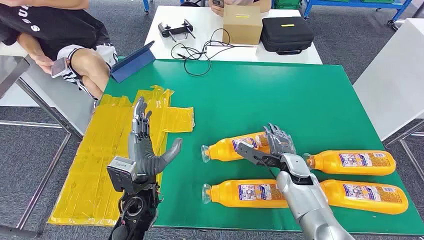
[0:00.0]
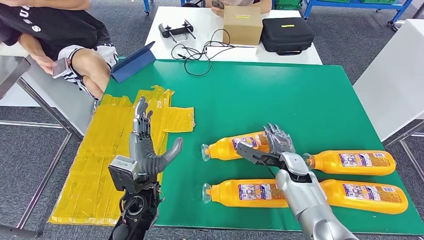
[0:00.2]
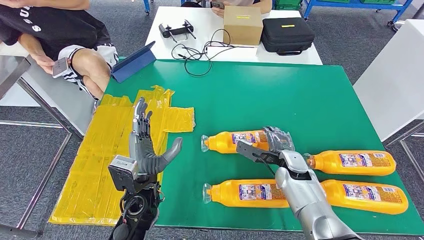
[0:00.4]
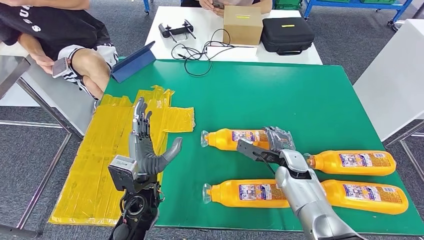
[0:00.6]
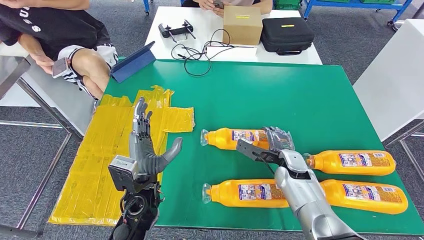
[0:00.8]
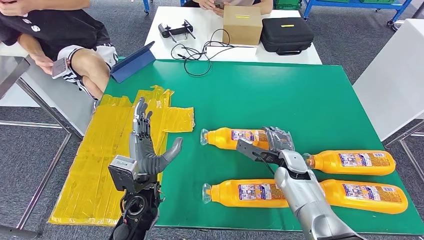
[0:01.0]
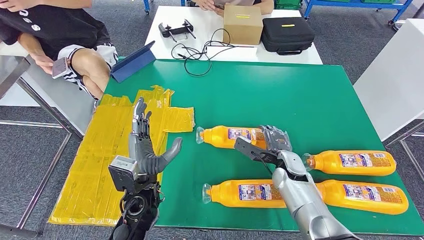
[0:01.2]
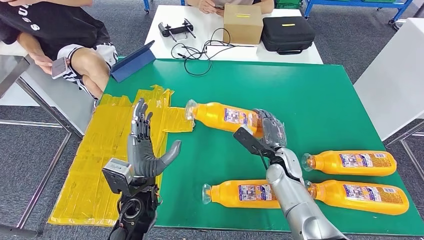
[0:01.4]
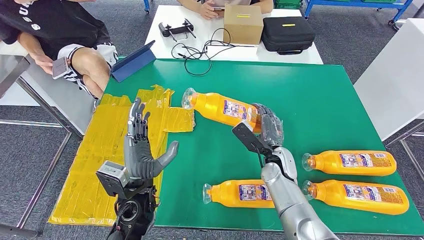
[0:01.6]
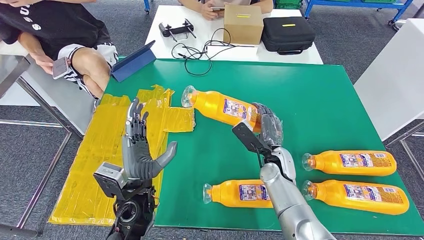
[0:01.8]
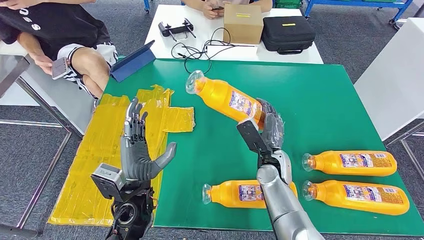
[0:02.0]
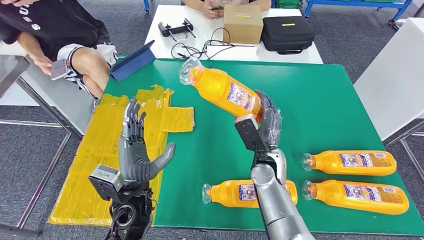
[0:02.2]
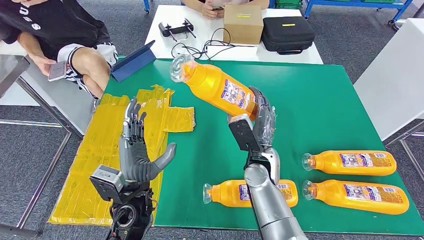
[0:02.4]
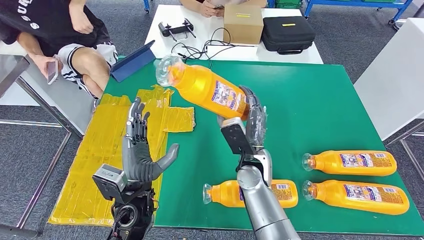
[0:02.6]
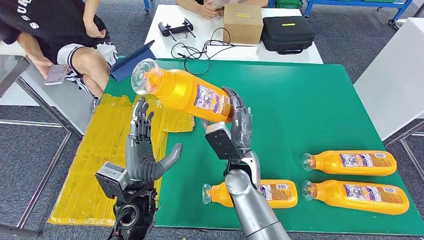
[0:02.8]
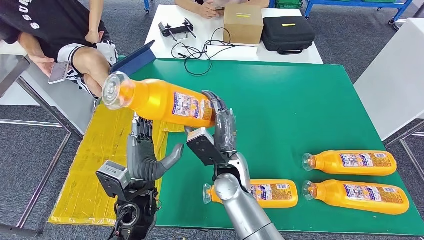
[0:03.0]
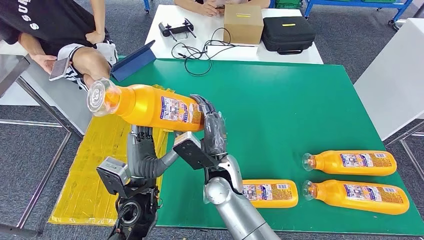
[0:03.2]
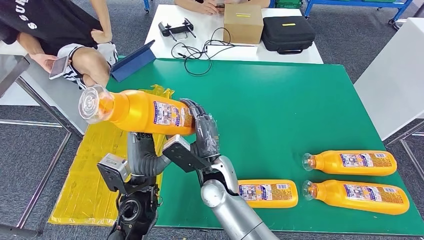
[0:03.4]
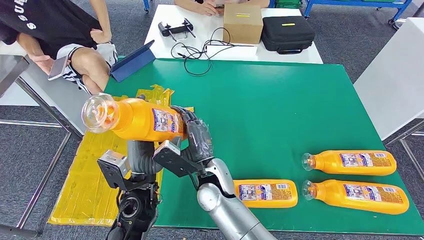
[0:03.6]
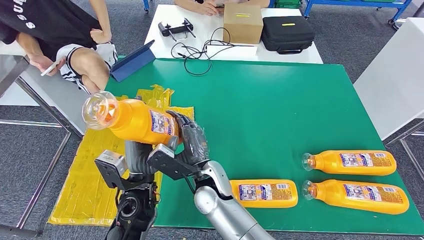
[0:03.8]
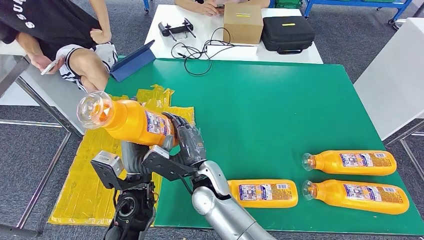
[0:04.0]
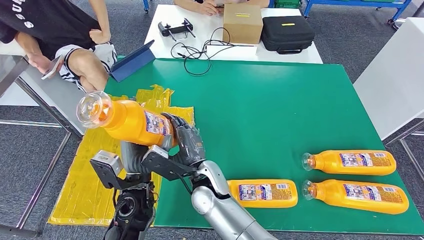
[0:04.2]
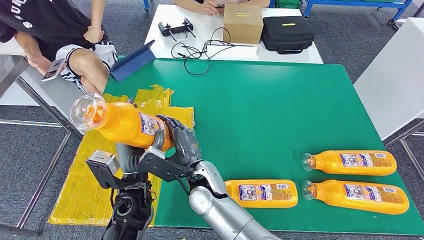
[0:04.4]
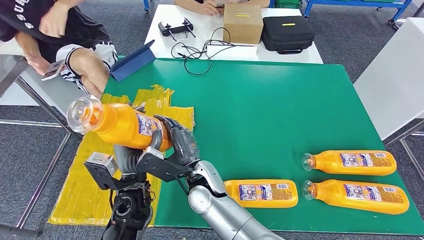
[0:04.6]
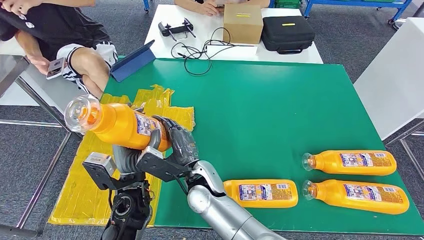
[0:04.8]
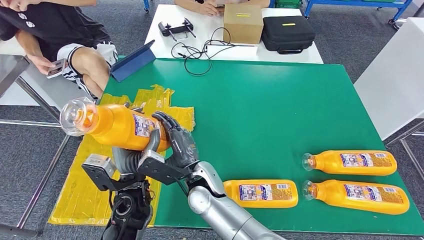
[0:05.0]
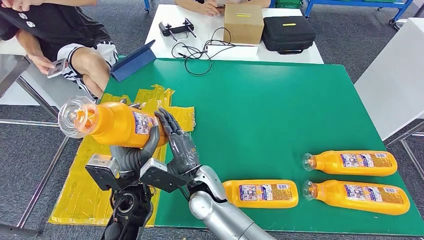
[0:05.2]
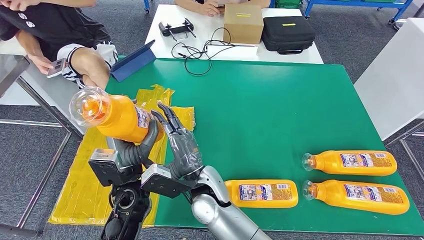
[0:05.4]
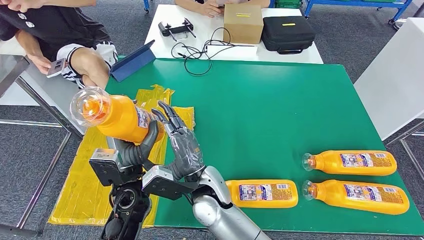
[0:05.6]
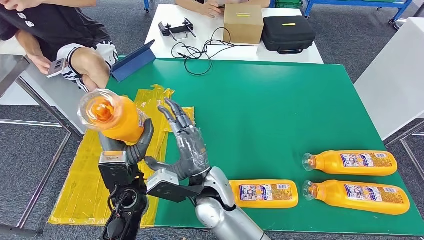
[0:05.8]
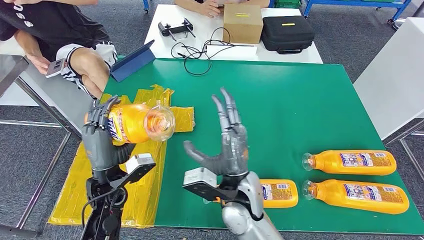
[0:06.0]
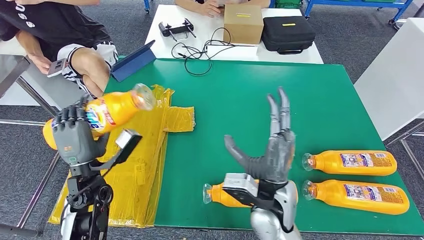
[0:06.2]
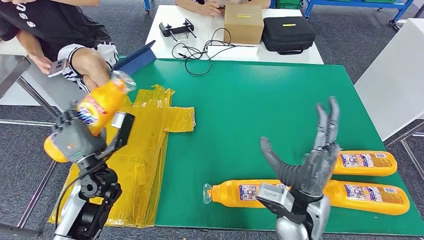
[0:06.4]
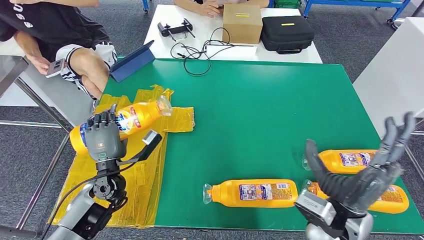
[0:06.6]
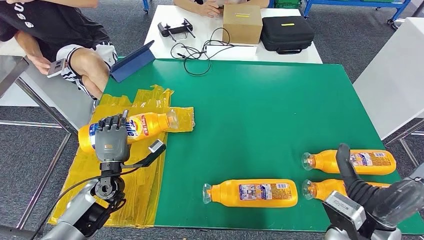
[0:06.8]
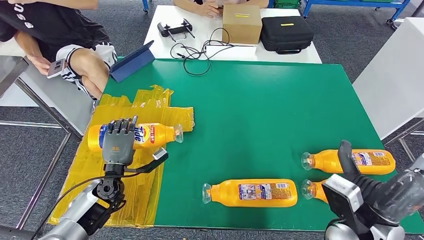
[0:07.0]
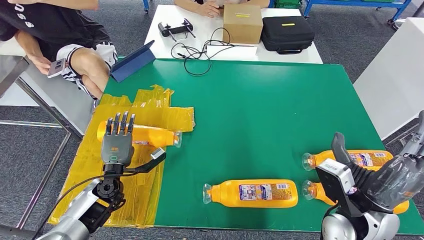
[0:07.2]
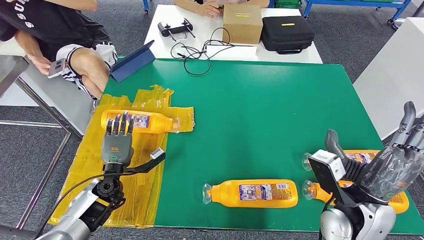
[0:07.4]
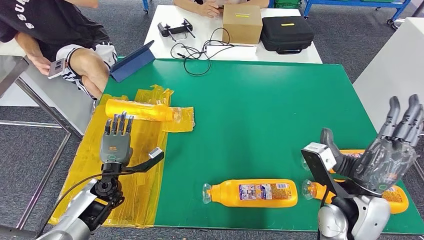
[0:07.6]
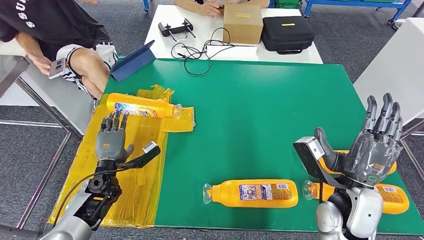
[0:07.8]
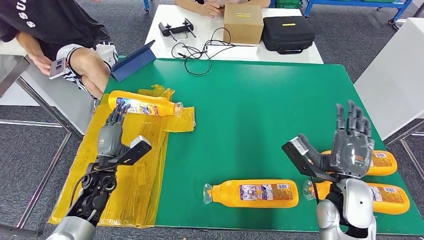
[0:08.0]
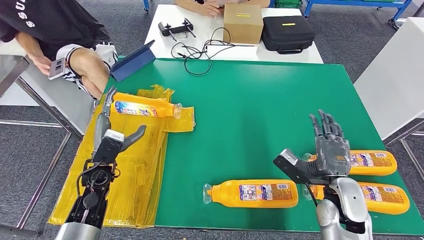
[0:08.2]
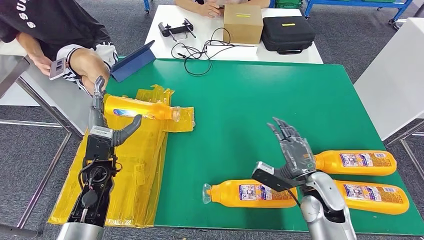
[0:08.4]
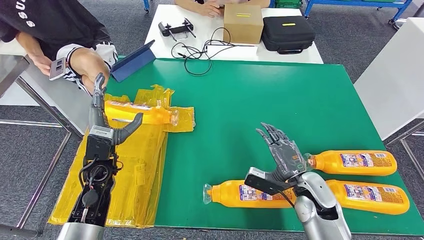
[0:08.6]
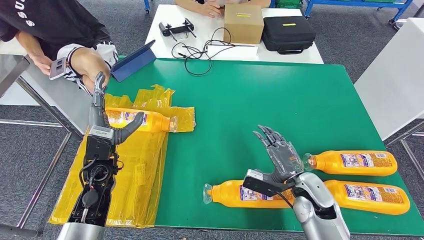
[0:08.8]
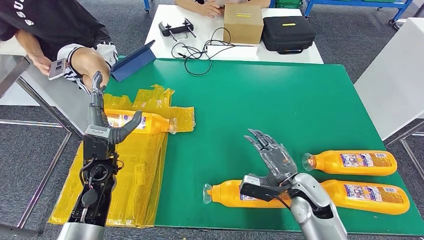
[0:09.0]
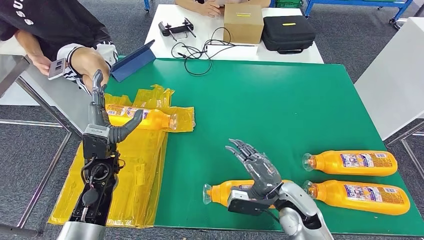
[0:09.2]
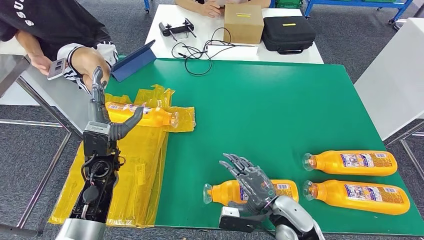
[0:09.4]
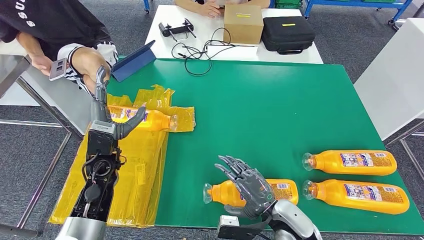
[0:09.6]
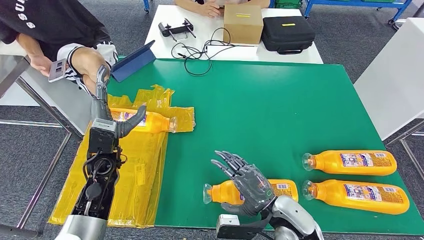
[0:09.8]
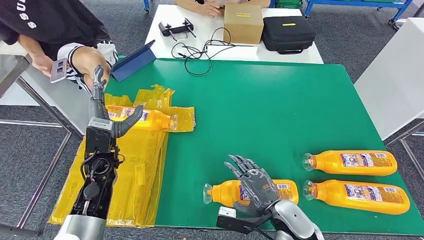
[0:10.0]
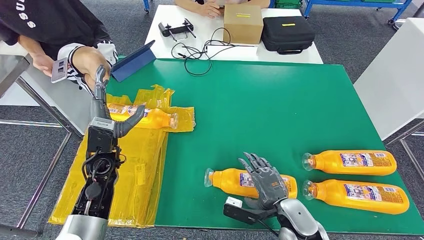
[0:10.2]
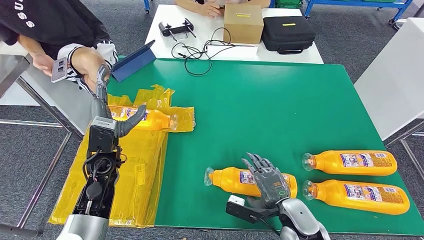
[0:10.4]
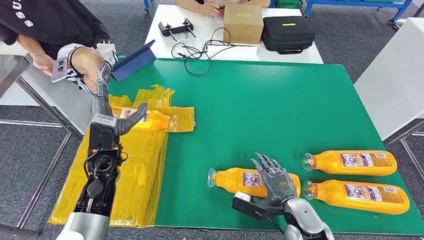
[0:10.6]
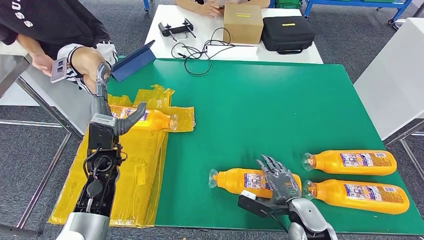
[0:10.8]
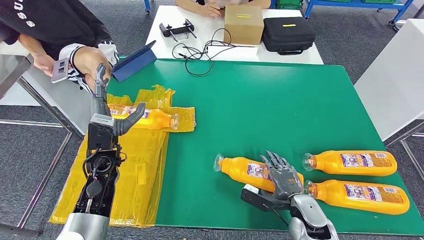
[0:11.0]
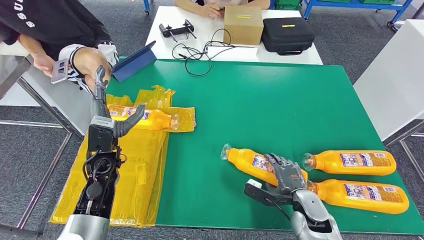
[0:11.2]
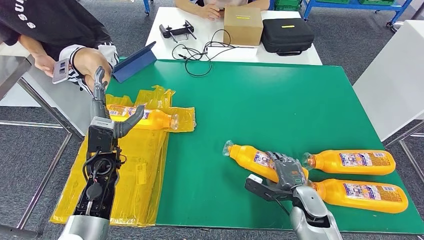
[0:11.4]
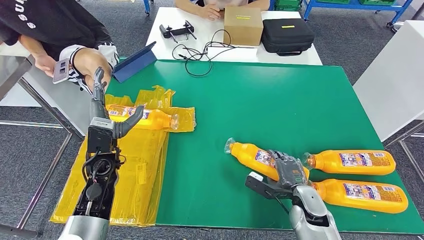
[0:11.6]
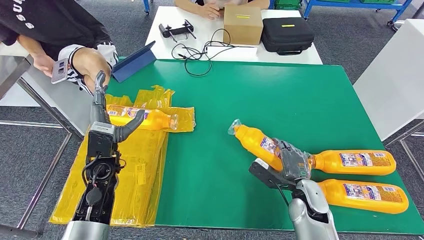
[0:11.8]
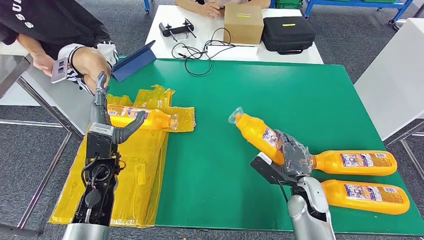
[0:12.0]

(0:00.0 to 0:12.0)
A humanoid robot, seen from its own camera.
Step, 0:00.0 - 0:02.2: Take the fast-moving consumer goods bottle from the table.
Step, 0:02.8 - 0:07.8: Flip the fast-moving consumer goods bottle to the front side.
0:01.6 - 0:03.0: The right hand travels to the left and upward by about 15 cm.
0:03.0 - 0:04.4: The right hand ends up approximately 5 cm from where it was.
0:04.4 - 0:06.0: The right hand travels to the right by some 5 cm, while the left hand travels to the left by some 5 cm.
0:09.0 - 0:10.4: The right hand heads backward, covering roughly 5 cm.
0:10.4 - 0:12.0: The right hand heads forward, covering approximately 5 cm.

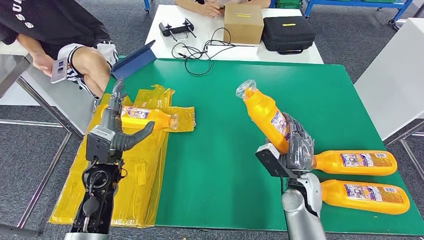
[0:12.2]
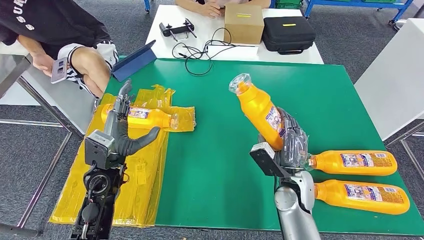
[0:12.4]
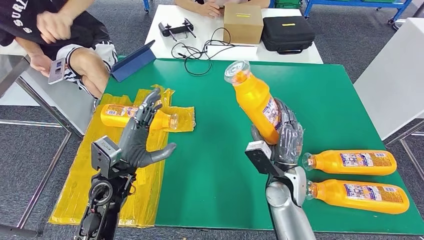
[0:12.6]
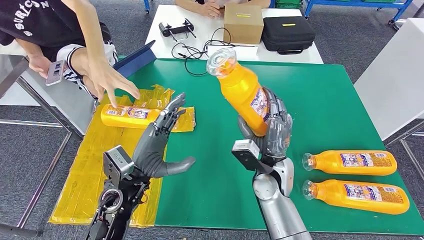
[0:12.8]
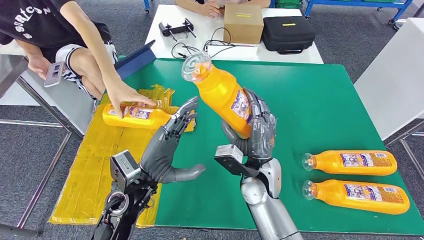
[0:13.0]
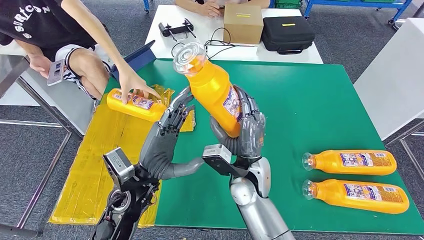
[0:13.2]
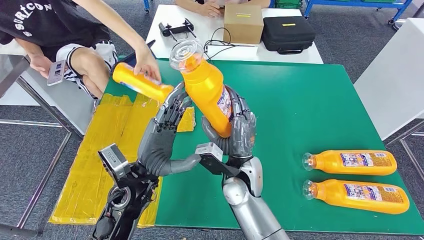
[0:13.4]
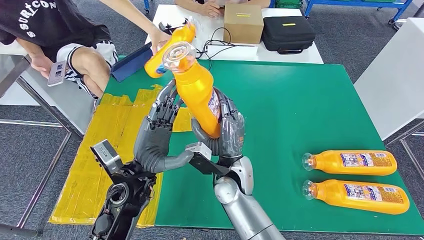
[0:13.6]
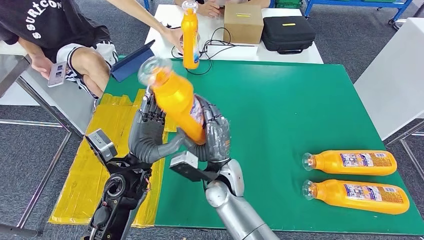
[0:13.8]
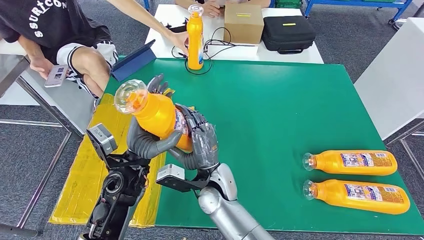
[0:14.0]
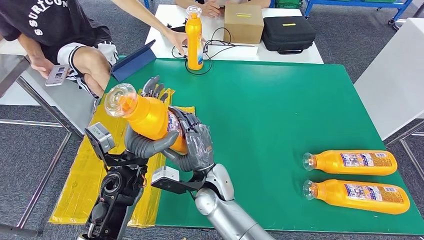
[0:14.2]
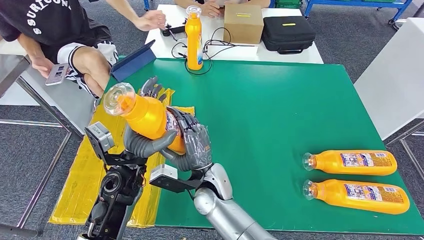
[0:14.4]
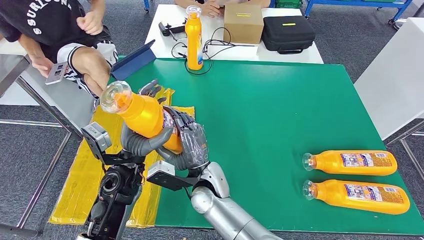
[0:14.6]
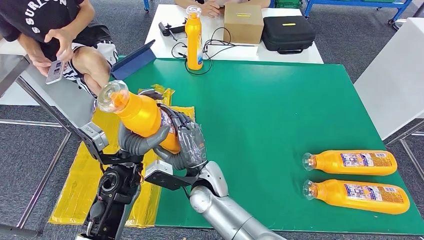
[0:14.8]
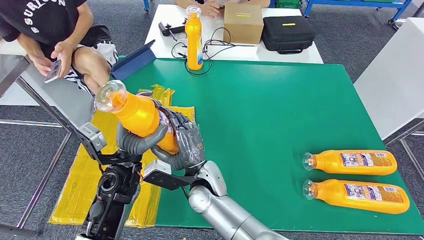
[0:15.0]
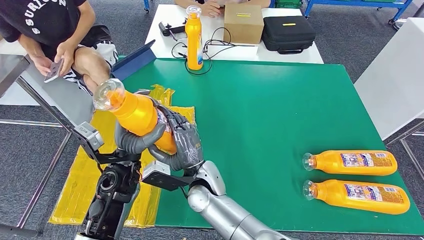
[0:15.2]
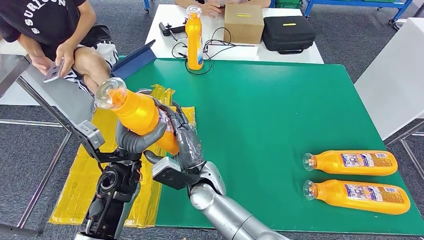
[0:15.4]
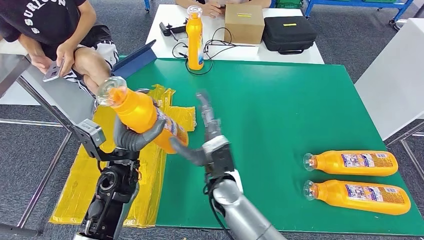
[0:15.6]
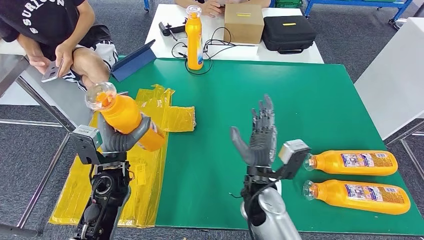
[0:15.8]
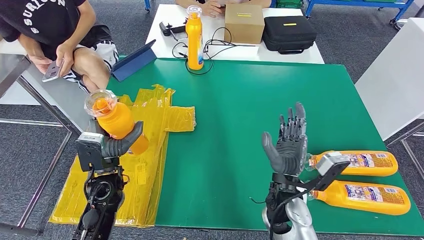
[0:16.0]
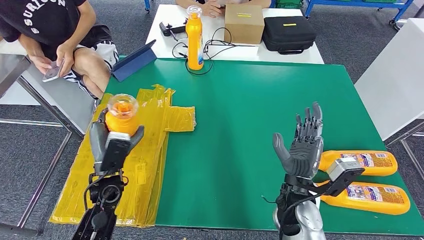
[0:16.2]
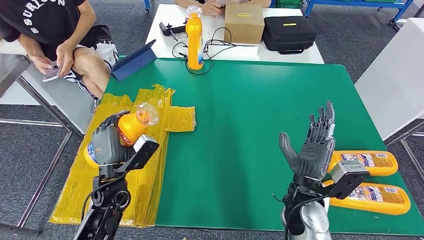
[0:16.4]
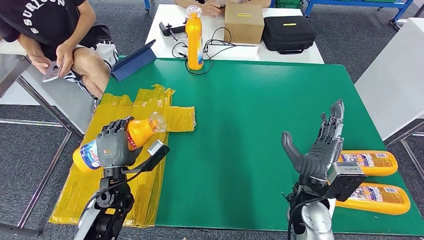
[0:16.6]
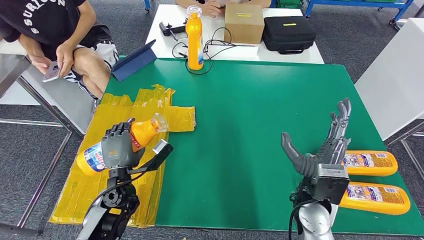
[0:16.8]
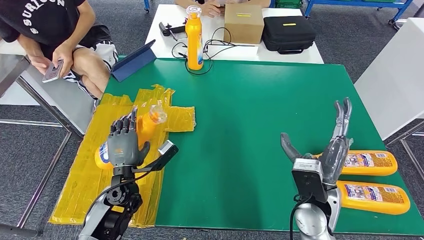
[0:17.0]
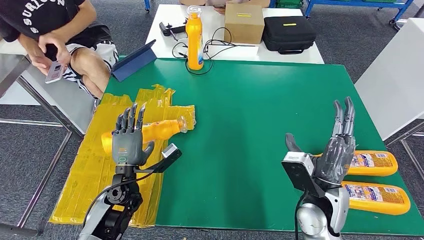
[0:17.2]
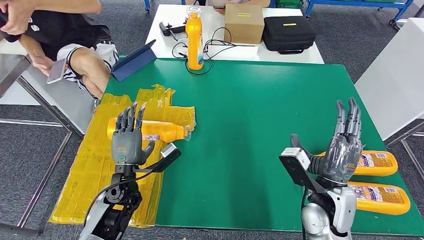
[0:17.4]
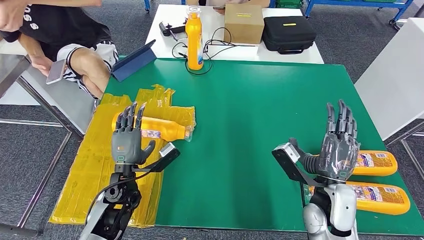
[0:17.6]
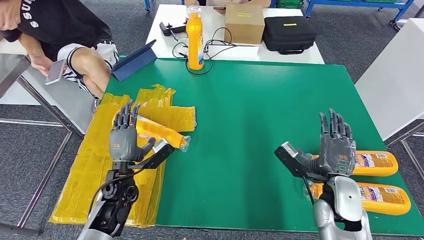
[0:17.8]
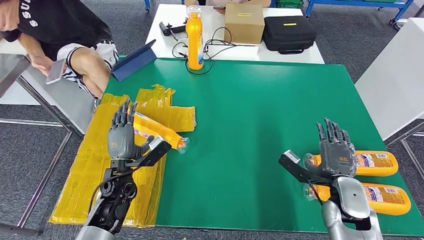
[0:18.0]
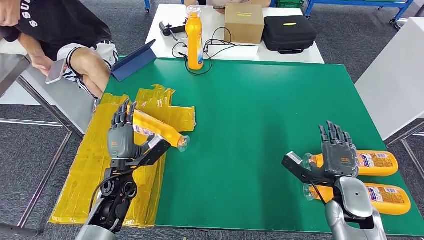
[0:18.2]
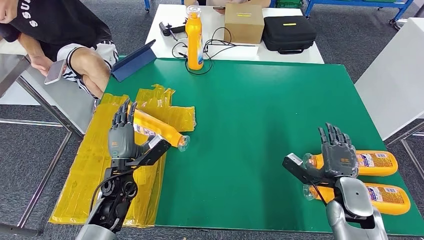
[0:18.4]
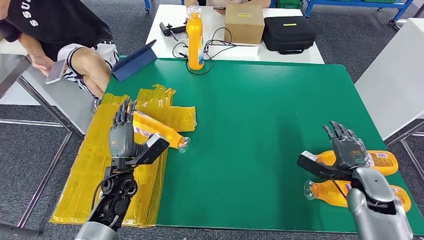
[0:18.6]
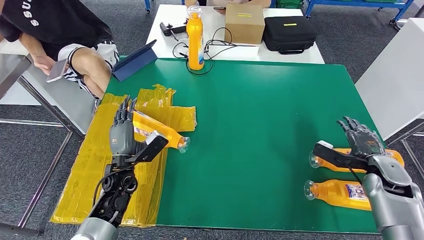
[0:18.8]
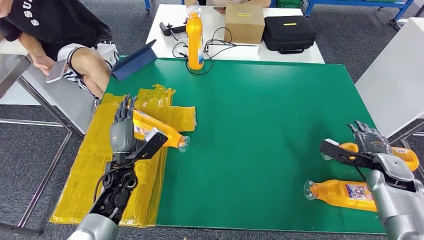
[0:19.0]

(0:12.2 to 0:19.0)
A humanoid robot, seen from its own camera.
Step, 0:13.4 - 0:18.2: Flip the fast-moving consumer goods bottle to the front side.
0:16.2 - 0:17.6: The right hand goes about 10 cm to the right.
0:17.6 - 0:19.0: The right hand goes roughly 25 cm to the right.
